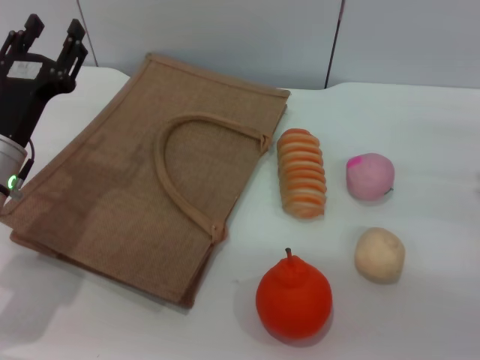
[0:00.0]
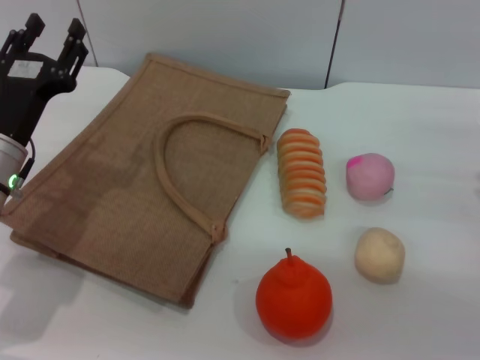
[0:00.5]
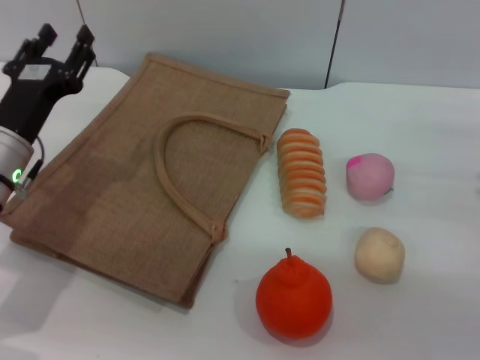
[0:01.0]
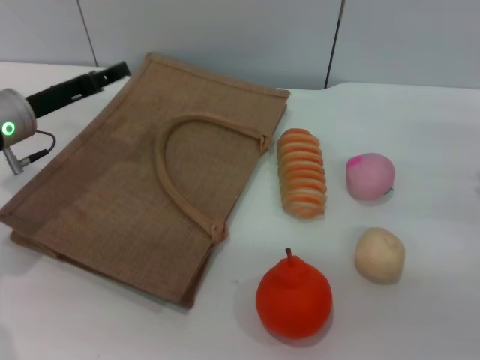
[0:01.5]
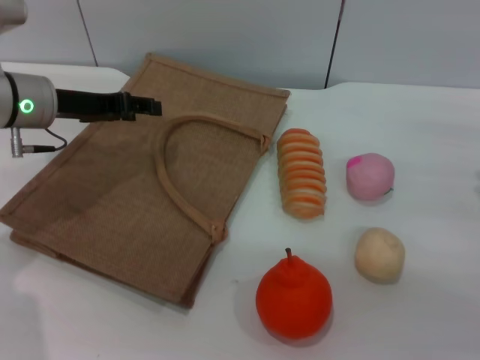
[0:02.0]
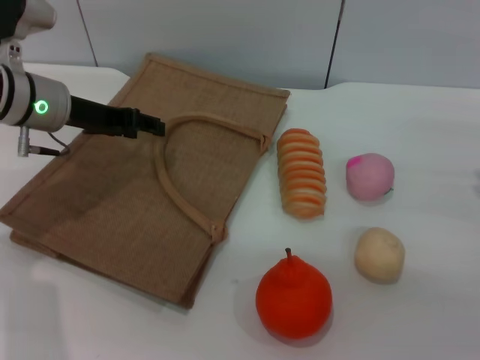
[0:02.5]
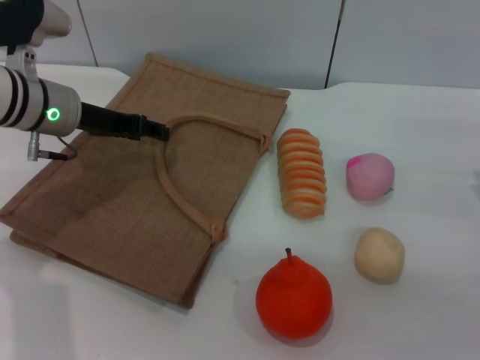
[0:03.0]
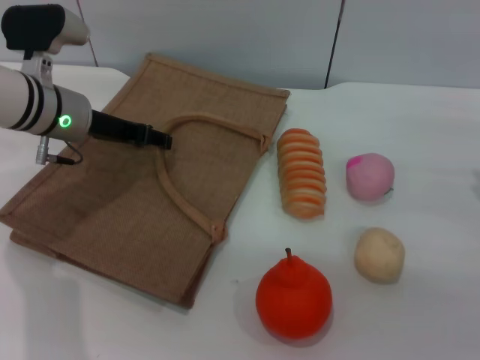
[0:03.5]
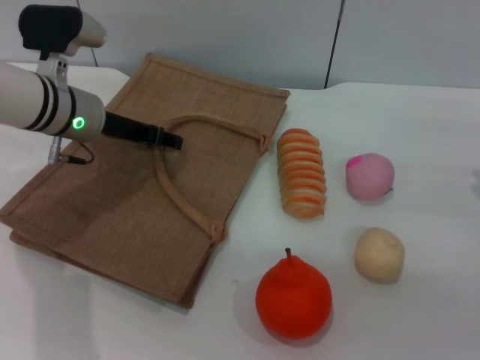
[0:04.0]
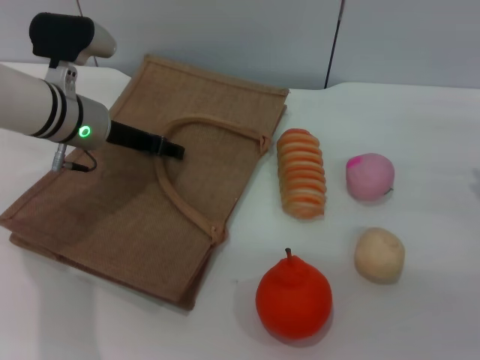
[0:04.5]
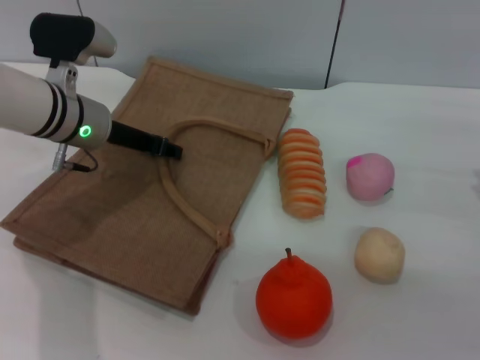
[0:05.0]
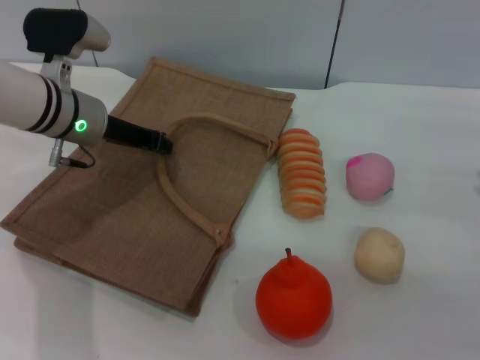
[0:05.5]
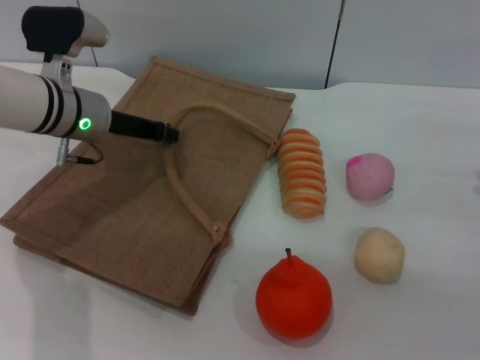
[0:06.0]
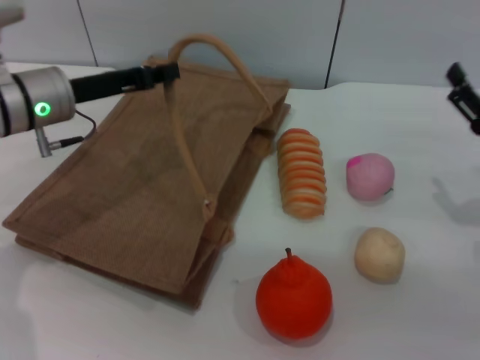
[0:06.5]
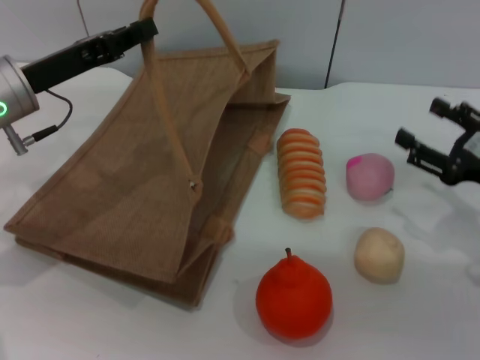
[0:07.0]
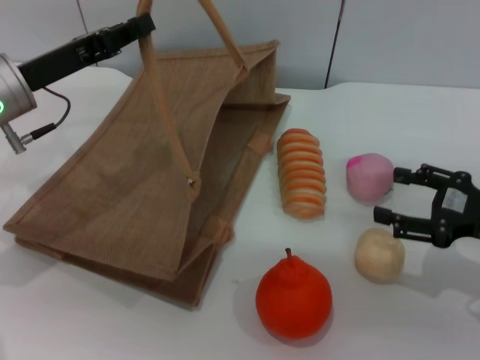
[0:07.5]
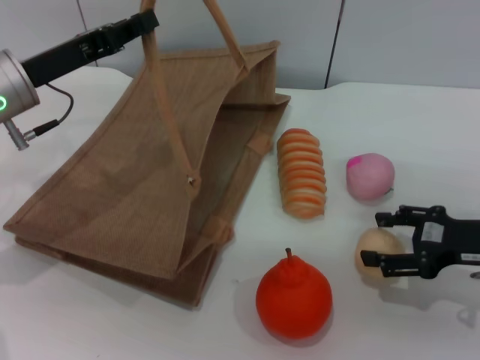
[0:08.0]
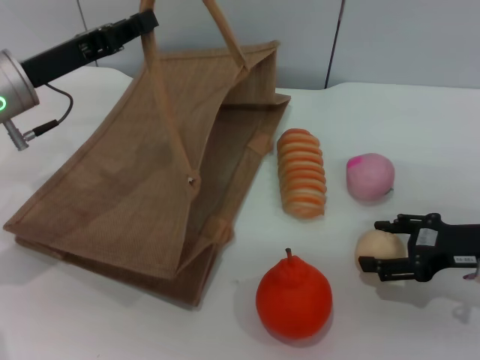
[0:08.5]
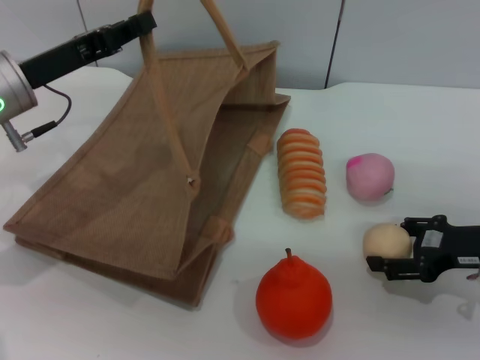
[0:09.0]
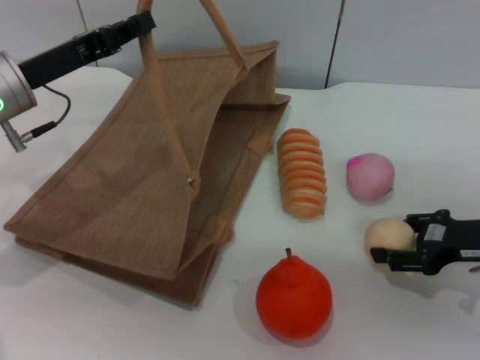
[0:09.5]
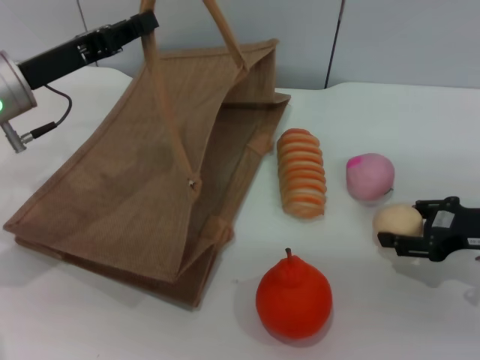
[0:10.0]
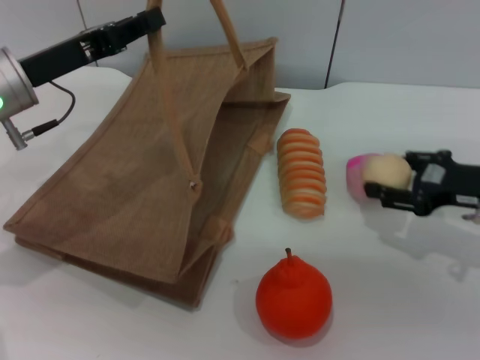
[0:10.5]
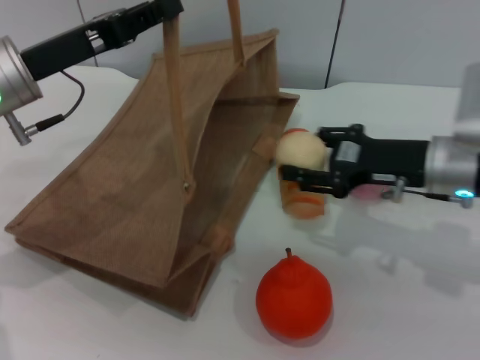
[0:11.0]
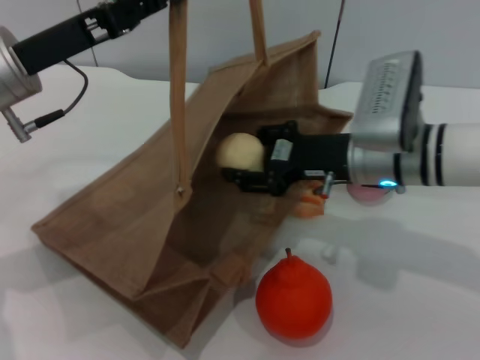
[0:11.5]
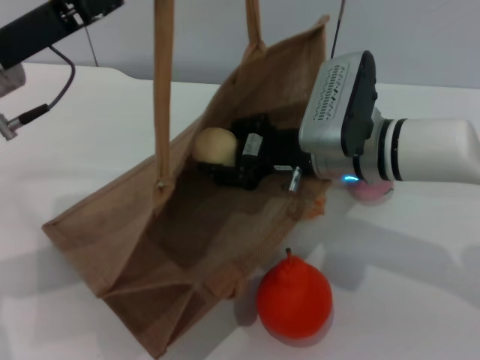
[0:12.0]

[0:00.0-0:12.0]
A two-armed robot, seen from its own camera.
Task of the whole recording: pick up the egg yolk pastry from the table and place it in the brown handbag.
Step, 0:00.0 to 0:06.0: Lift the woven bag with the left gripper to open it.
Step, 0:06.5 to 0:10.5: Pick up the egg yolk pastry with the right gripper.
0:00.0 to 0:02.0: The left gripper goes approximately 10 cm forward and upward.
0:02.0 to 0:04.0: The left gripper ends up about 5 cm from where it was.
0:04.0 to 0:06.0: The left gripper closes up.
0:06.0 to 0:08.0: The left gripper heads backward and to the left, covering roughly 5 cm.
0:08.0 to 0:10.0: The right gripper closes its fingers.
0:10.0 to 0:12.0: The right gripper travels to the left by some 20 cm, while the left gripper shifts by approximately 5 cm.

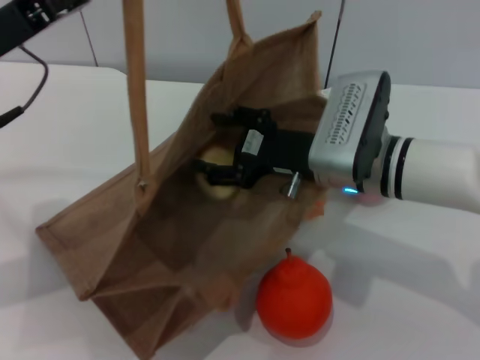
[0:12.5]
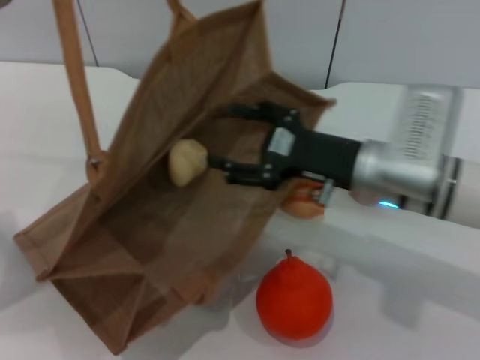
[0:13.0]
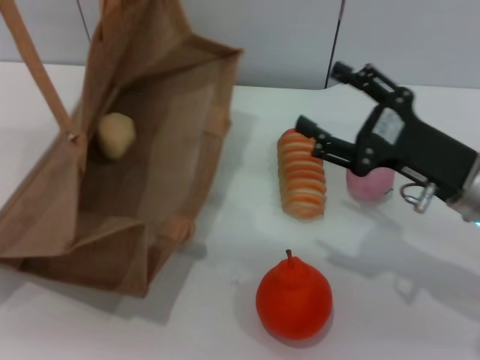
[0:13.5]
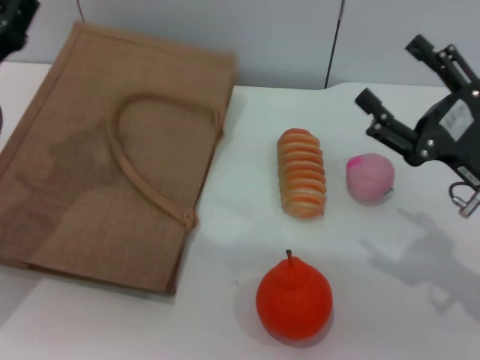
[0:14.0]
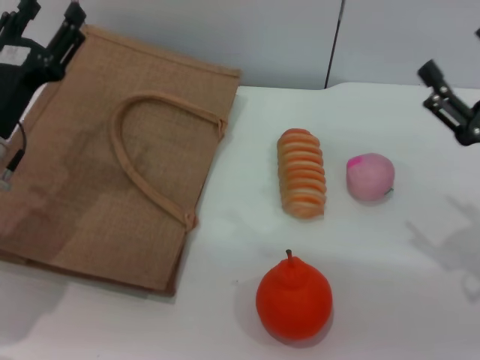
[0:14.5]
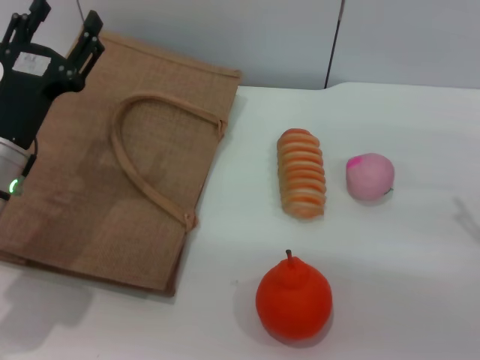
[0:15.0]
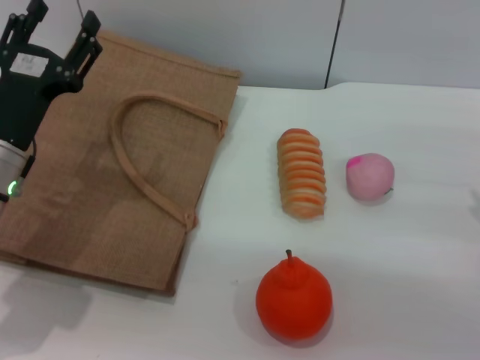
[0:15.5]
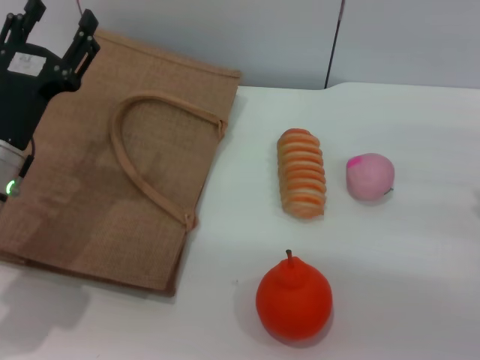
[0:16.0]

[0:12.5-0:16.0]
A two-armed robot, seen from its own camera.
Task of the whole recording: pick up the egg yolk pastry from the table and place it in the brown handbag.
0:12.5 to 0:14.5: The left gripper goes some 10 cm downward, and opens, while the right gripper is displaced to the right and backward by approximately 20 cm, and opens its fingers.
